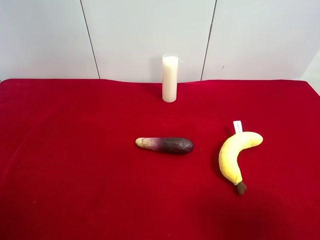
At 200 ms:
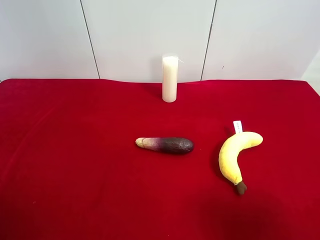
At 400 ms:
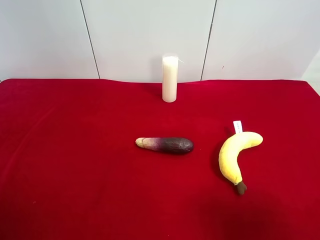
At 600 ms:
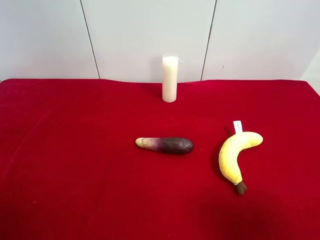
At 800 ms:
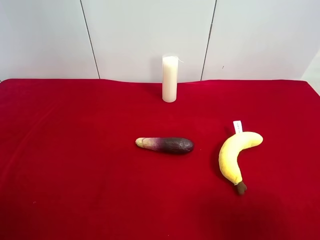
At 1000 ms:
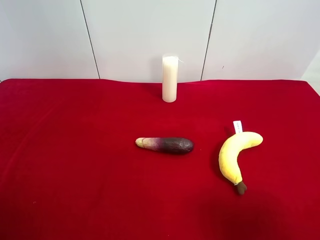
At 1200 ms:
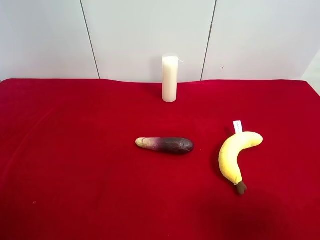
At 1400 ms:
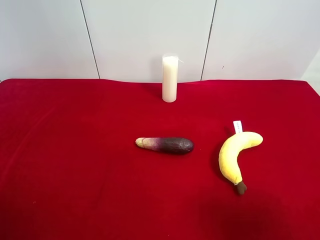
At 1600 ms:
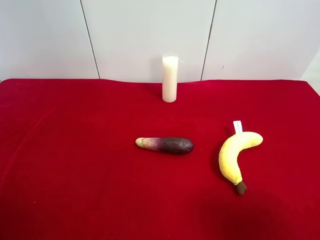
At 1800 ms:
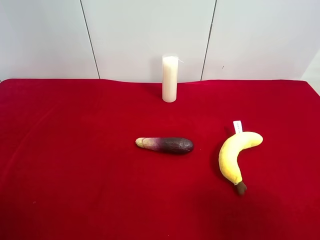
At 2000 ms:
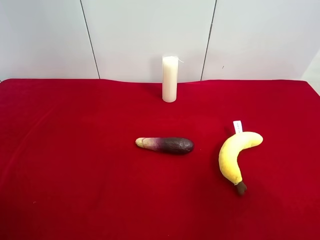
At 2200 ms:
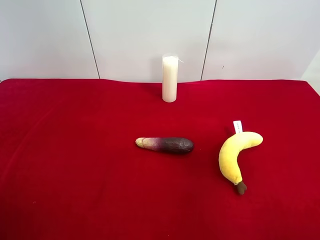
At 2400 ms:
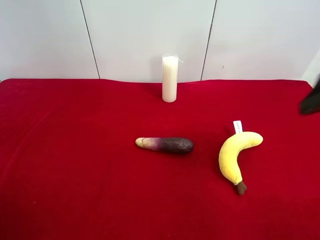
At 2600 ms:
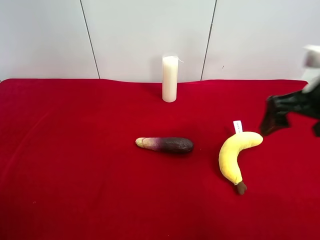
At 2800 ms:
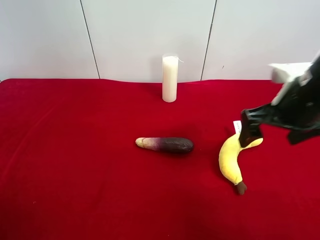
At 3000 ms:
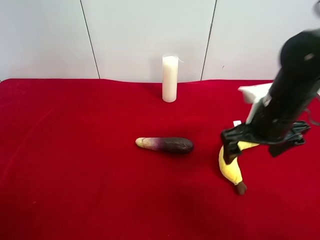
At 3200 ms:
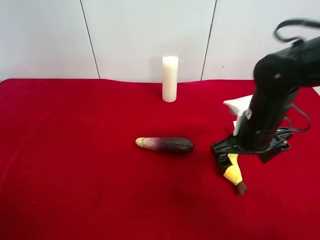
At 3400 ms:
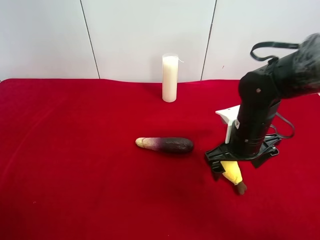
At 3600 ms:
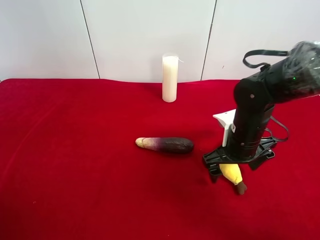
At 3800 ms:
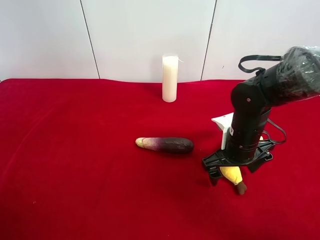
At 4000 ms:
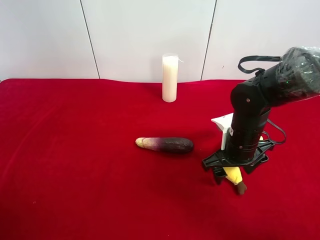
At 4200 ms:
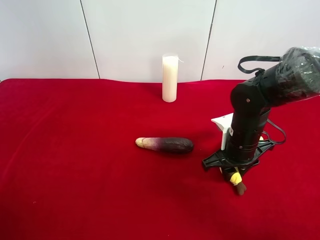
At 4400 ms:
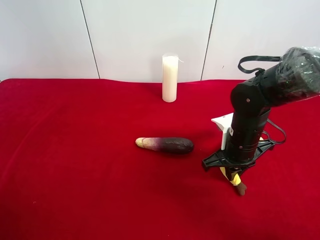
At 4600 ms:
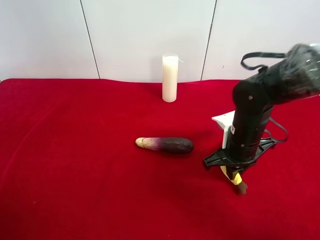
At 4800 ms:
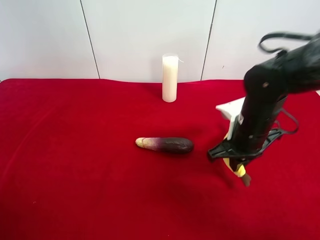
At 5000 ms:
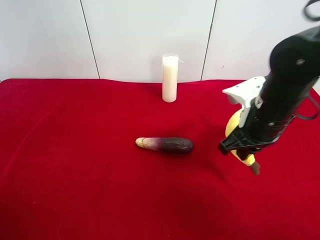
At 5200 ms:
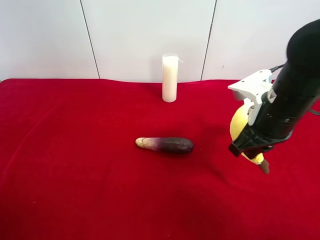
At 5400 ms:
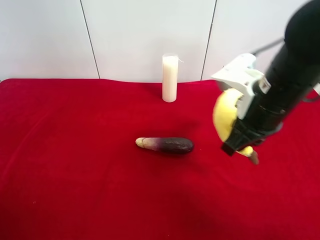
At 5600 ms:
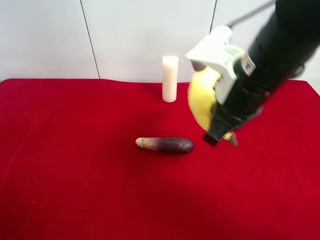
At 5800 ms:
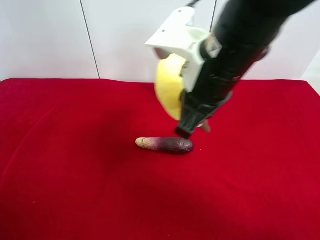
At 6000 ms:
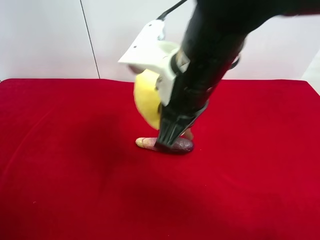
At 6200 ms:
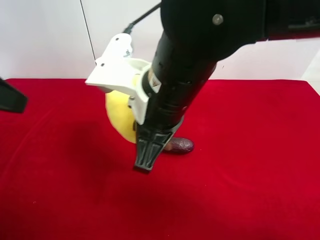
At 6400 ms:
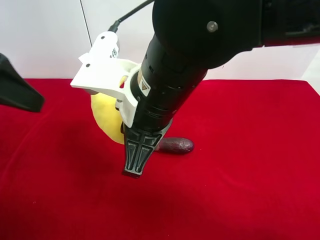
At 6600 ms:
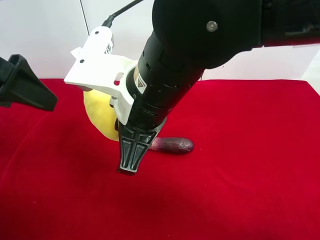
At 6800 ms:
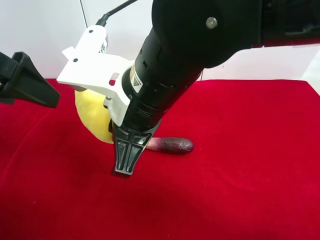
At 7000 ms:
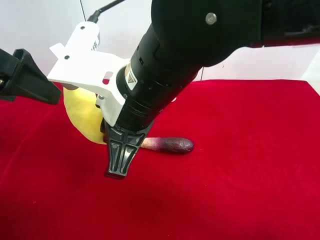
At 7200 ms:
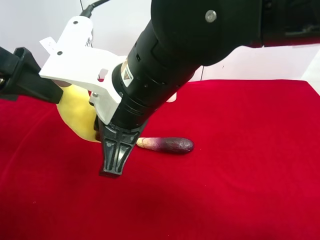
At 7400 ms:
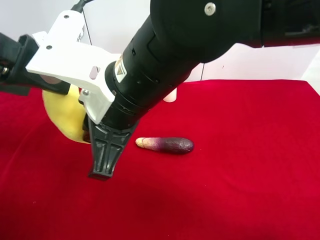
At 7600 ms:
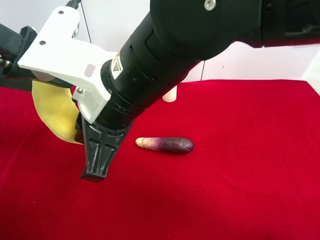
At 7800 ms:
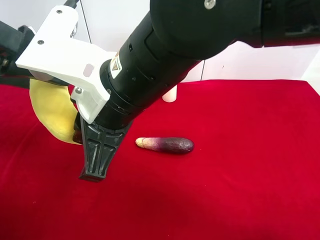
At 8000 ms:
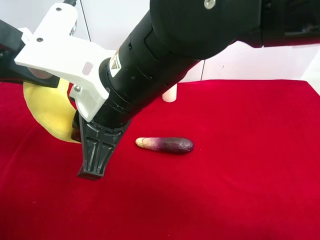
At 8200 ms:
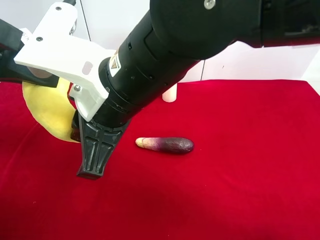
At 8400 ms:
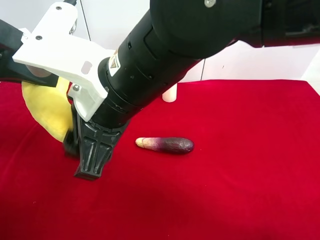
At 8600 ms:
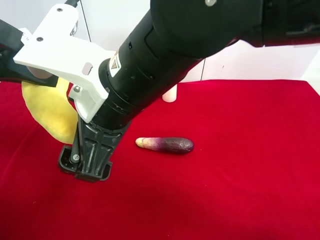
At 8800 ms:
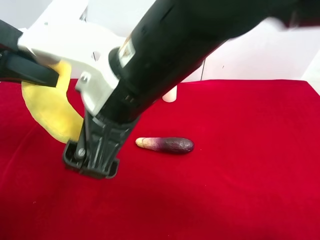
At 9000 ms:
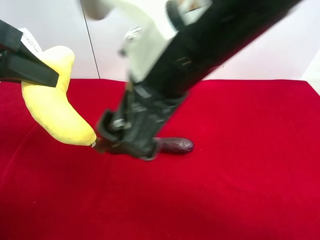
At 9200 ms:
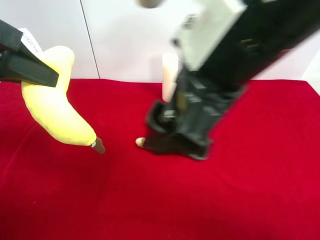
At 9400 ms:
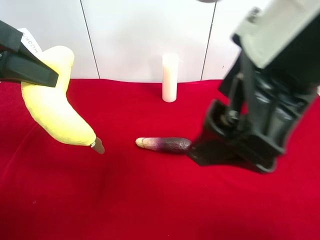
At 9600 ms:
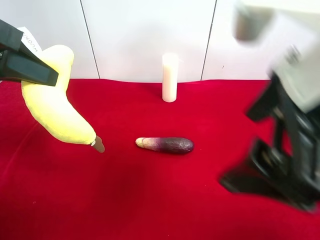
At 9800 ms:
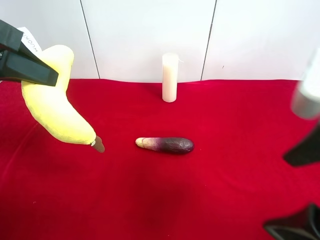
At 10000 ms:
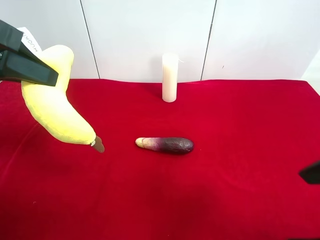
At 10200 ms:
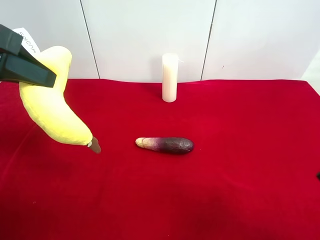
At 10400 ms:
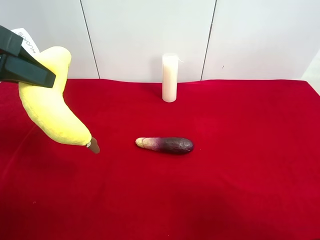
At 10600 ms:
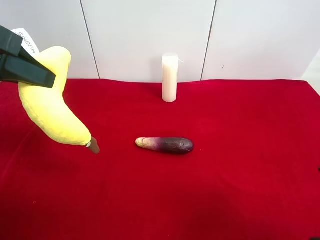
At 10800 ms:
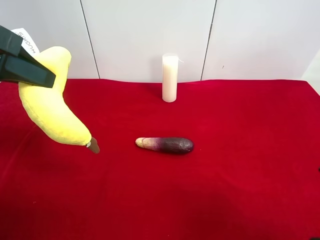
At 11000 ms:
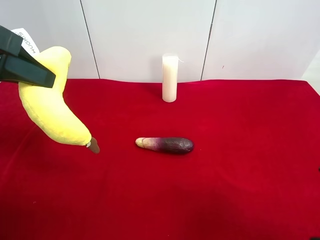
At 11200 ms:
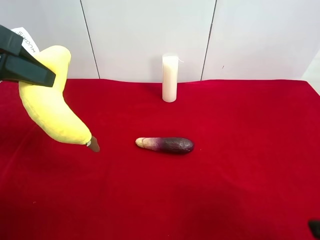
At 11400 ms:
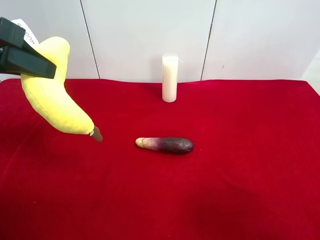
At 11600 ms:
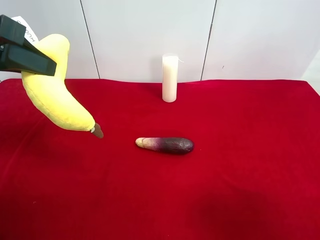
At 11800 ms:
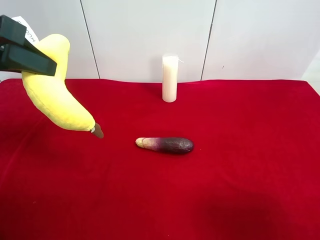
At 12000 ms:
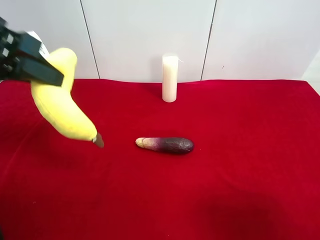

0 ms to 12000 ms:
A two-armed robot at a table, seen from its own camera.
Task of the whole recording: use the right gripper to pick up the item and transfer it from the right gripper to the left gripper.
Step, 0 ms to 4200 ms: Use the right gripper to grab the plush banana on the right side of the table.
Step, 4400 ms to 8400 ms: Pass the plush banana to the left gripper.
0 ms to 1600 ms: Neither gripper changes place.
1600 ms to 3000 ms: The right gripper heads forward and to the left, covering roughly 25 cm.
3000 ms to 4400 ms: The right gripper shifts approximately 5 cm downward, and closes its fingers.
4400 ms to 6000 ms: The left gripper heads forward, upward and to the right, covering some 15 cm. The right gripper shifts some 20 cm upward and to the left.
6000 ms to 7600 ms: The left gripper is displaced forward by roughly 5 cm; the right gripper shifts some 5 cm to the left.
7600 ms to 9000 ms: The right gripper goes about 10 cm to the right and upward, and opens up; the left gripper closes up.
9000 ms to 10400 ms: The right gripper heads to the right and backward, covering approximately 25 cm.

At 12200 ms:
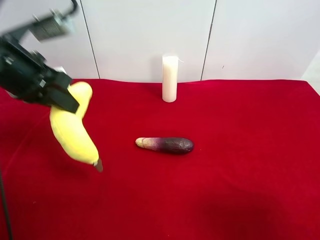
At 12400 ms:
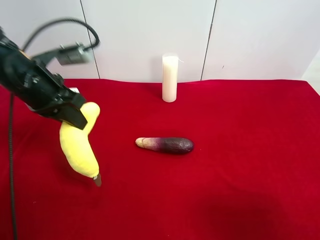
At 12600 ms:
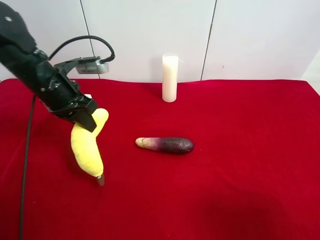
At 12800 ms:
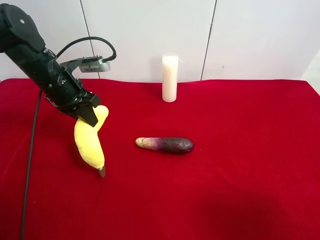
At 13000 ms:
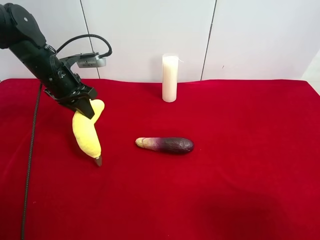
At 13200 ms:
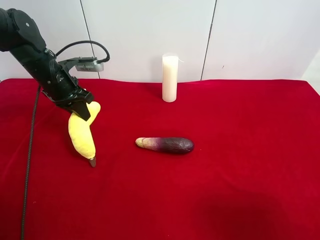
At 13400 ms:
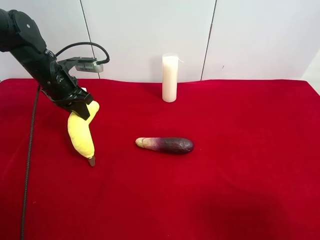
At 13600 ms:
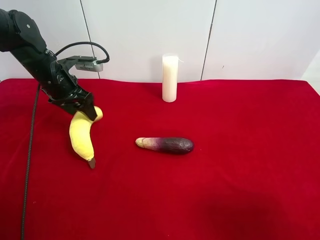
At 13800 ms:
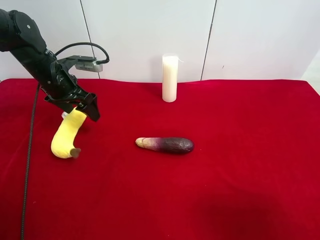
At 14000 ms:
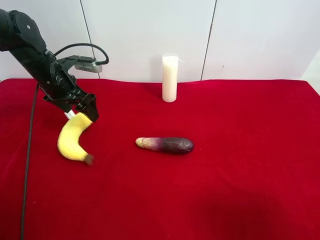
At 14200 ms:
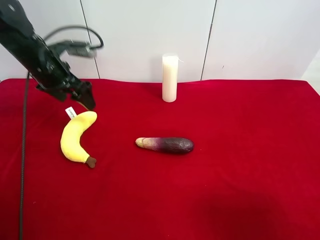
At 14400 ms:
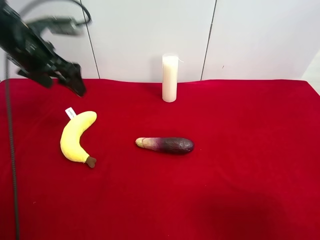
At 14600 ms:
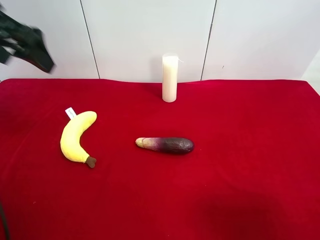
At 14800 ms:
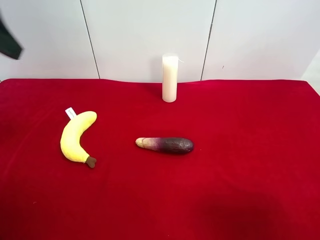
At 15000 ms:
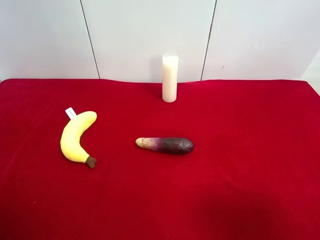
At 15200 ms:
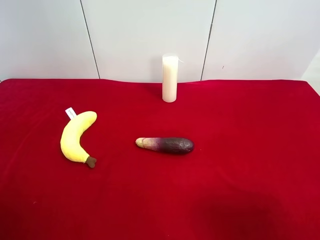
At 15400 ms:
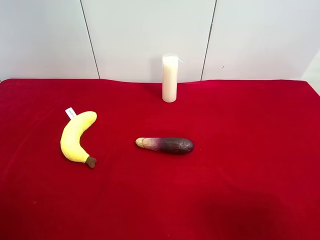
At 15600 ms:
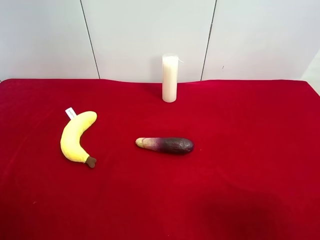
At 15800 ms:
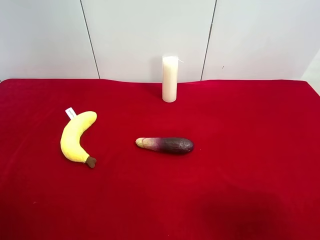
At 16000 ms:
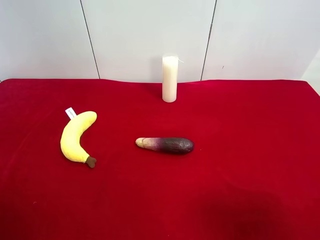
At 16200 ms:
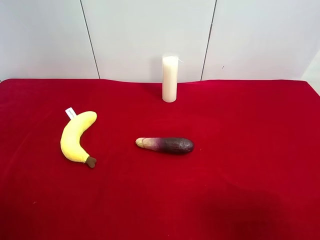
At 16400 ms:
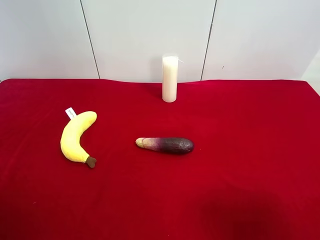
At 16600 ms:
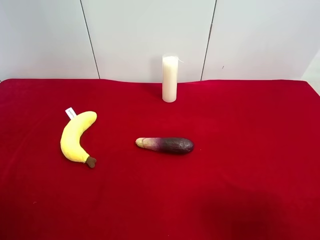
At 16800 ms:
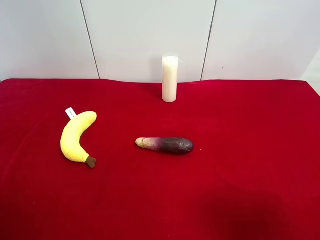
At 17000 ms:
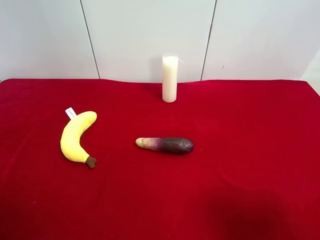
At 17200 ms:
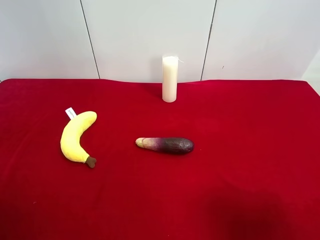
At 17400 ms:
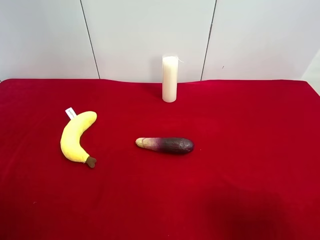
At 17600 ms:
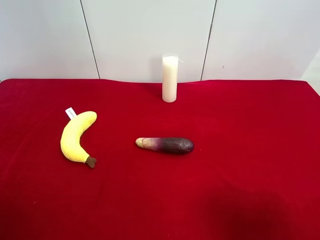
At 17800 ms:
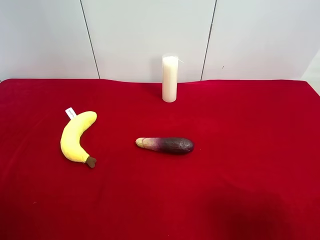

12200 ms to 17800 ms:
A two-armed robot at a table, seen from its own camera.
Task of the whole recording: use the right gripper to pick up the item and transfer it from the right gripper to the left gripper.
12200 ms to 13600 ms: The left gripper is displaced forward and downward by about 15 cm, and opens.
13600 ms to 15000 ms: The left gripper shifts roughly 30 cm backward and upward.

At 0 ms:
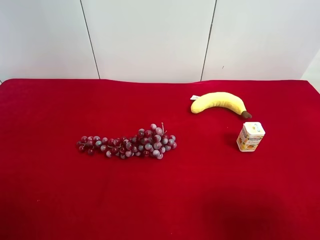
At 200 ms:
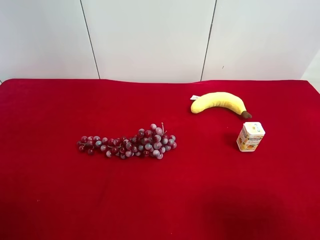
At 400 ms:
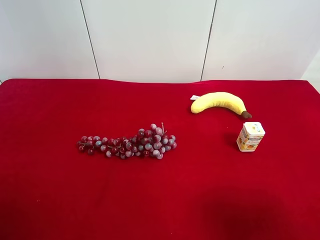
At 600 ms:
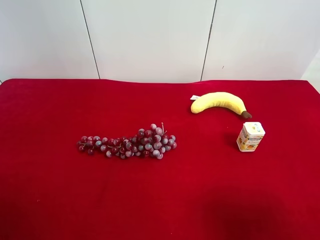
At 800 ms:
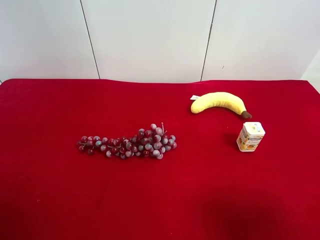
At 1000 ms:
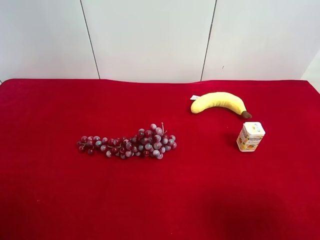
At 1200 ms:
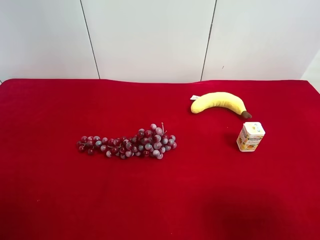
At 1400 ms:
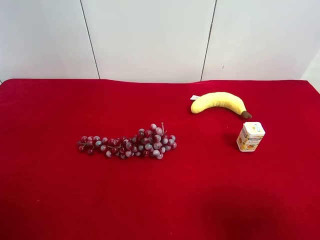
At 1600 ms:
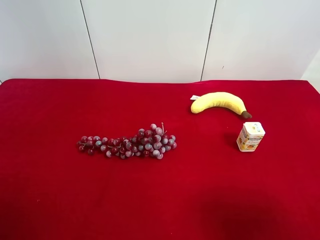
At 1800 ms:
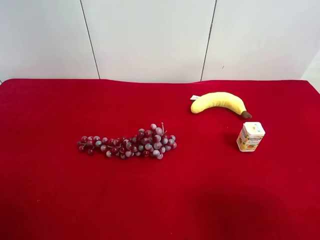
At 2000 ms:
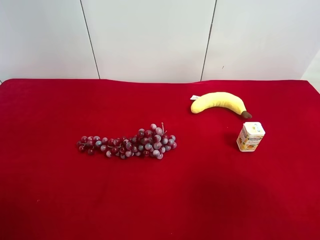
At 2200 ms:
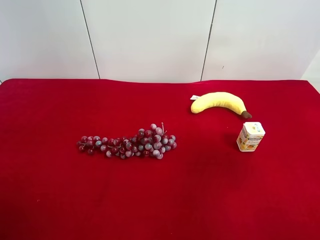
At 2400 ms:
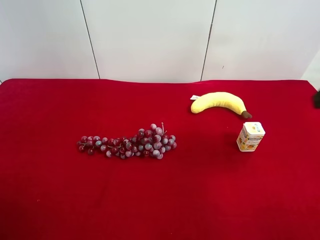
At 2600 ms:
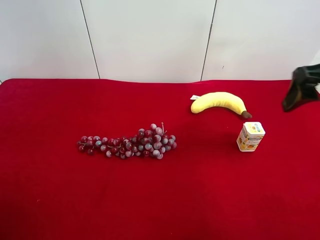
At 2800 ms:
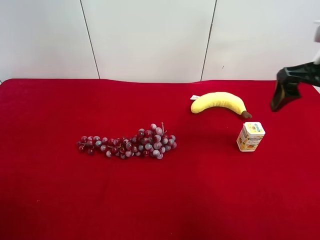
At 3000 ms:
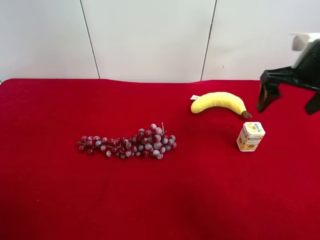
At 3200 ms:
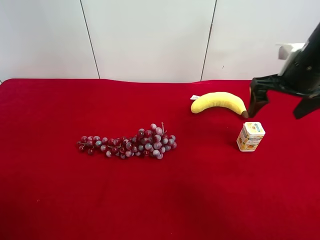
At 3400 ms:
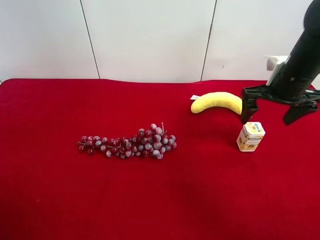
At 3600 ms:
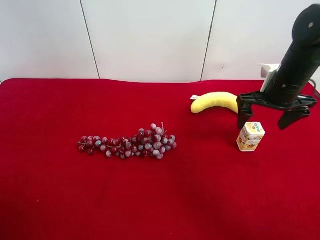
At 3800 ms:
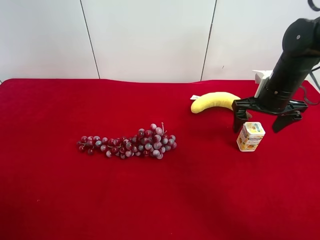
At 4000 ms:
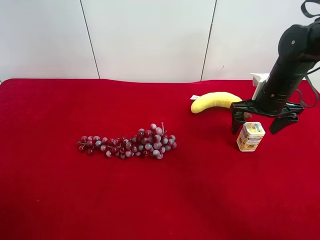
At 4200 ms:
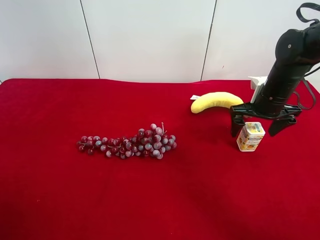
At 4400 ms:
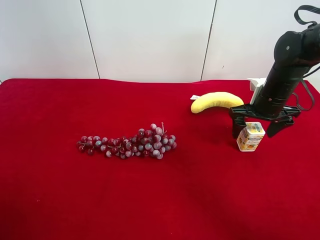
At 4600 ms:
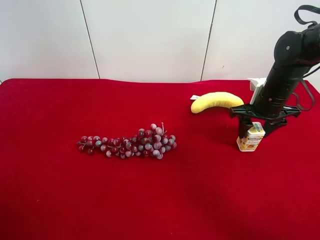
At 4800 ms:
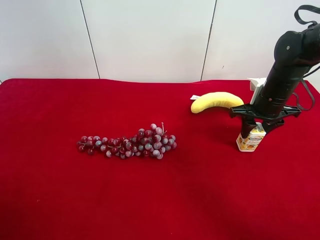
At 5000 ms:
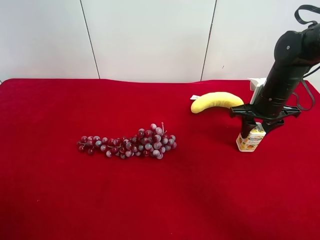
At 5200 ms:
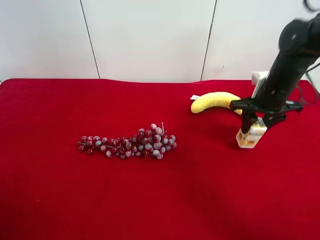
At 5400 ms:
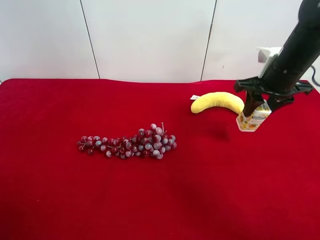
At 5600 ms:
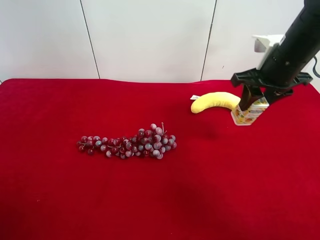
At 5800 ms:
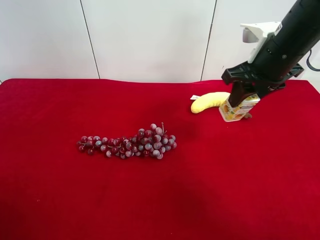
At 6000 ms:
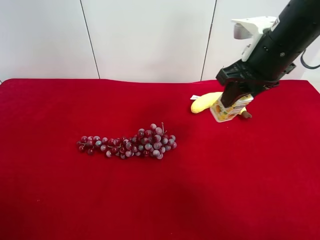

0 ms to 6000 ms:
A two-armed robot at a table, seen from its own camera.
Task of the whole recording: use the right gripper to pick up the item and transfer it from the right gripper to the left gripper.
Step, 0 ms to 4600 ms: Use the right gripper to grab the square chewing gum on the right side of the table.
0 ms to 1600 ms: Both grippers stay about where they are.
1600 ms to 3000 ms: The right gripper heads forward, covering roughly 30 cm.
3000 ms to 4400 ms: The right gripper shifts approximately 10 cm downward and forward.
4400 ms to 6000 ms: The right gripper shifts approximately 15 cm upward, to the left and backward, and closes up.
